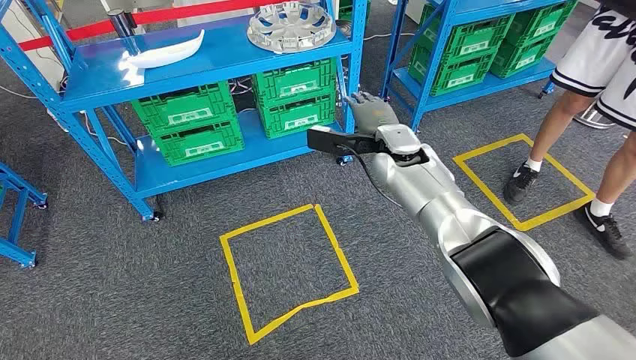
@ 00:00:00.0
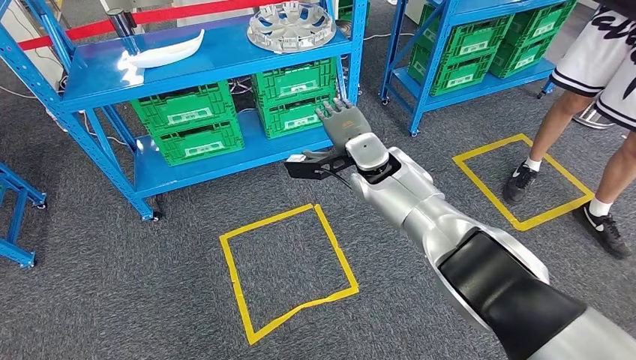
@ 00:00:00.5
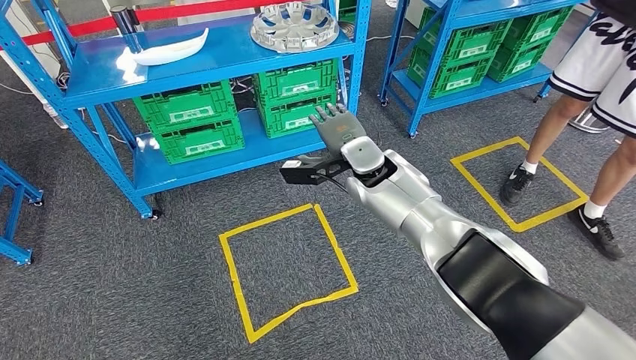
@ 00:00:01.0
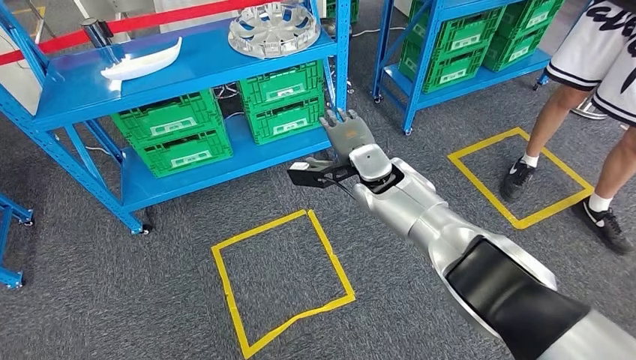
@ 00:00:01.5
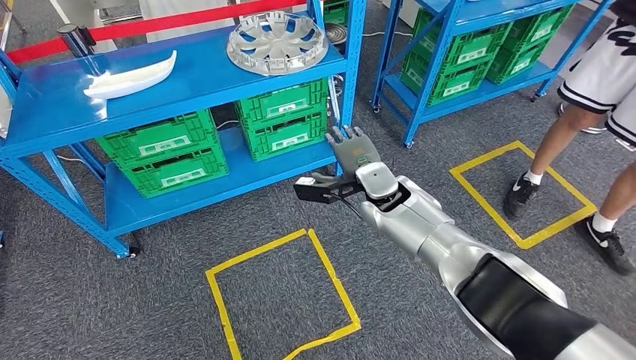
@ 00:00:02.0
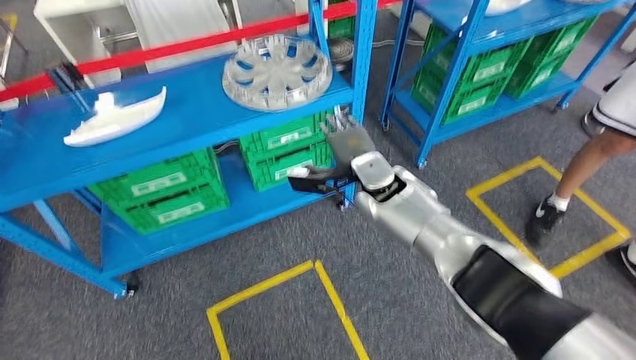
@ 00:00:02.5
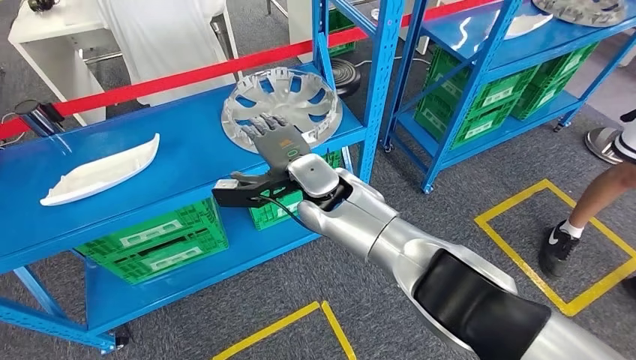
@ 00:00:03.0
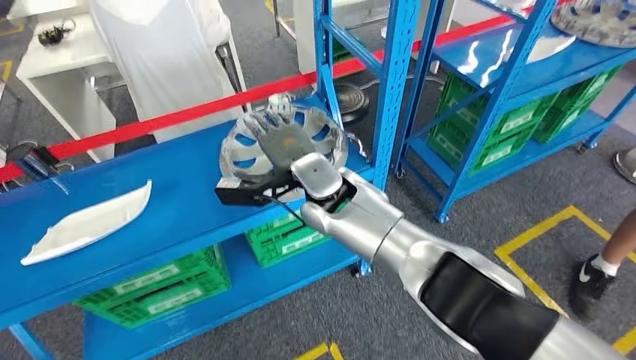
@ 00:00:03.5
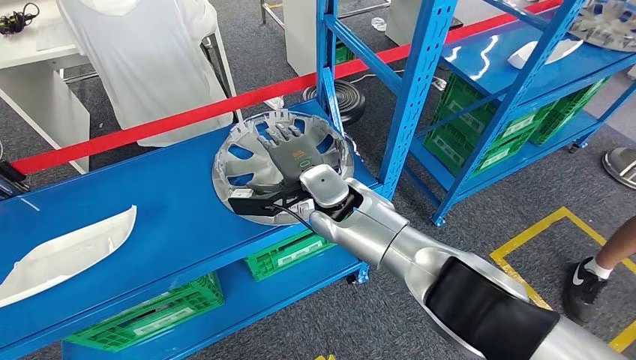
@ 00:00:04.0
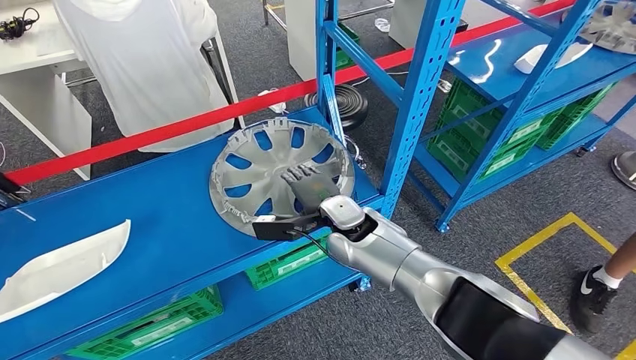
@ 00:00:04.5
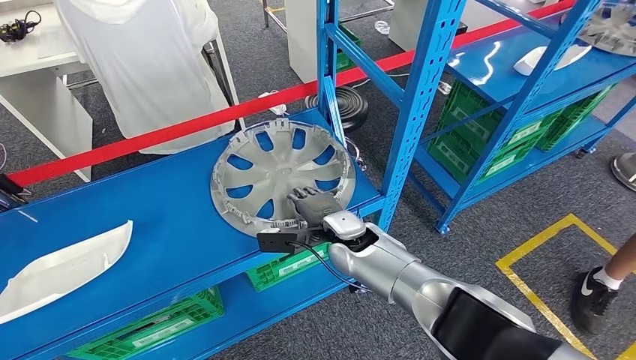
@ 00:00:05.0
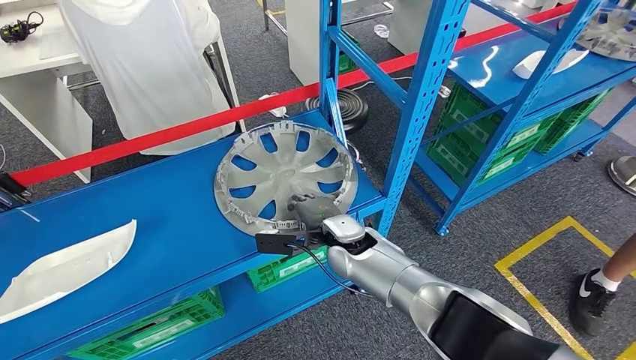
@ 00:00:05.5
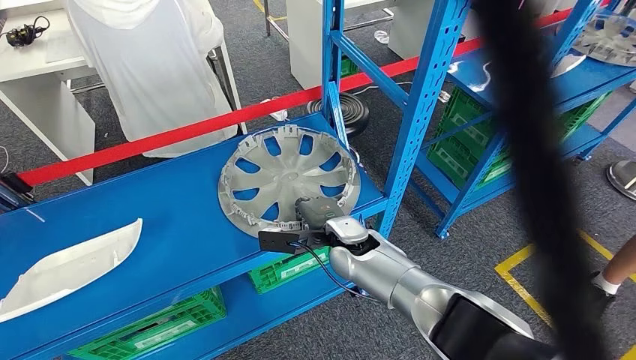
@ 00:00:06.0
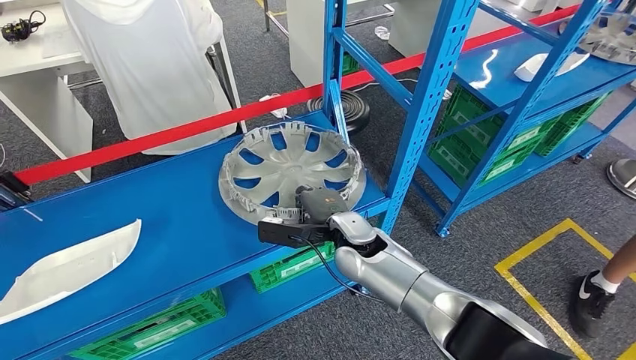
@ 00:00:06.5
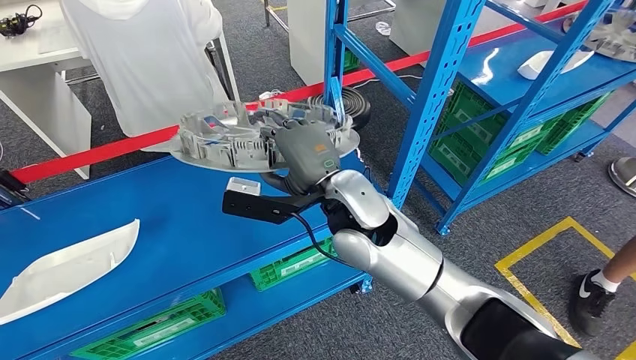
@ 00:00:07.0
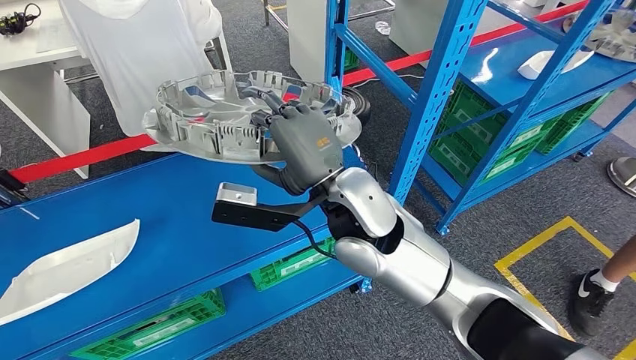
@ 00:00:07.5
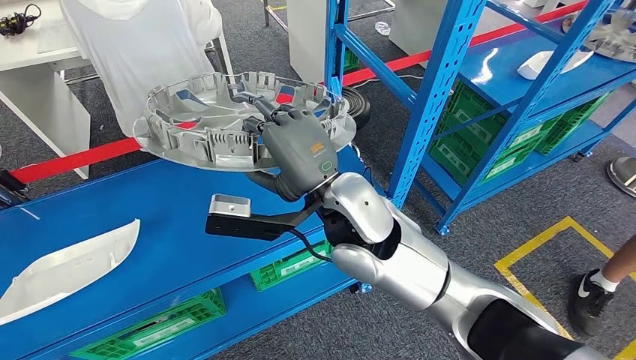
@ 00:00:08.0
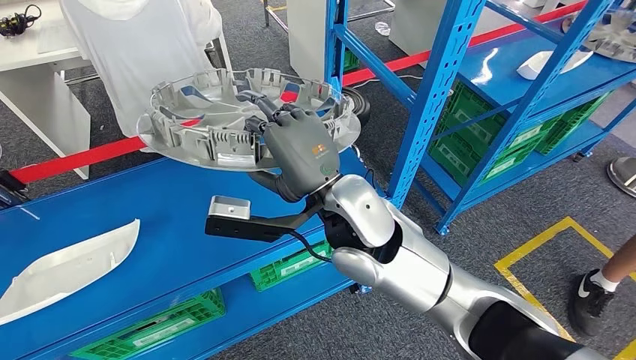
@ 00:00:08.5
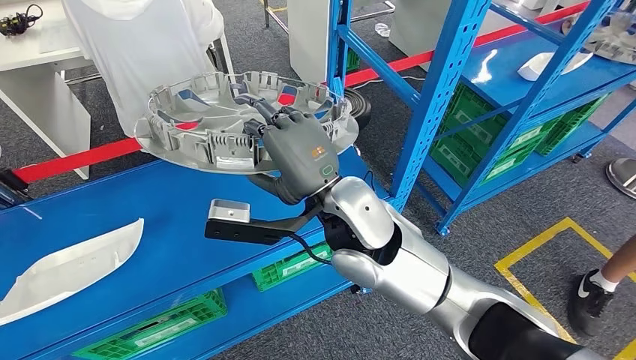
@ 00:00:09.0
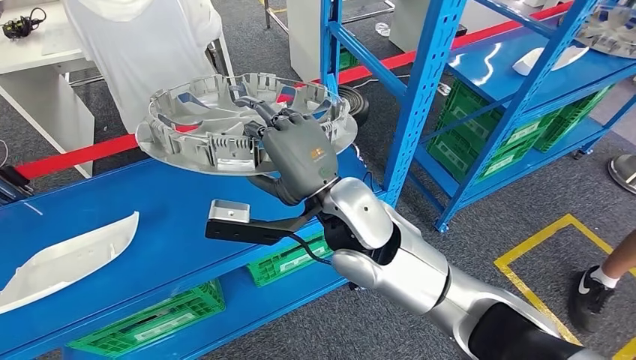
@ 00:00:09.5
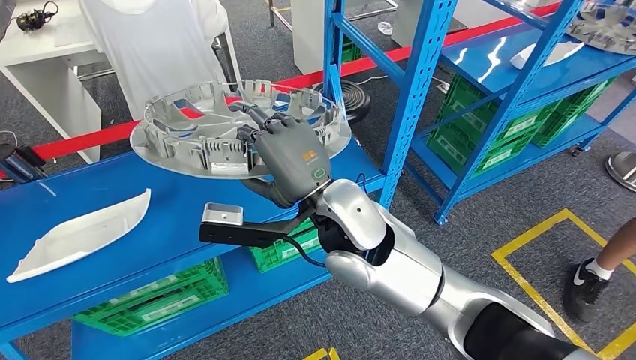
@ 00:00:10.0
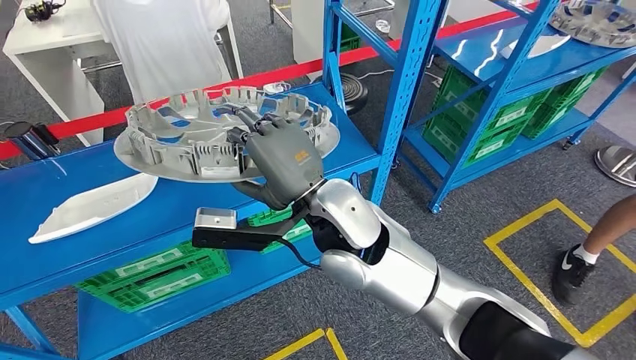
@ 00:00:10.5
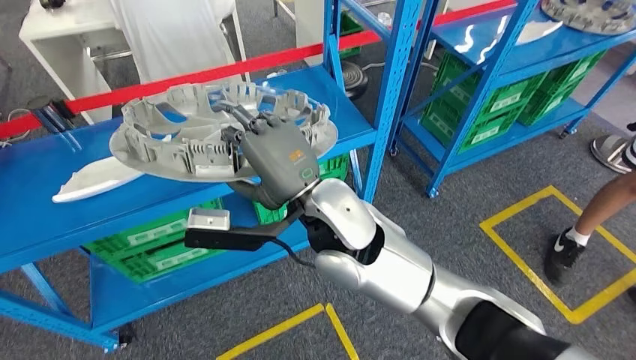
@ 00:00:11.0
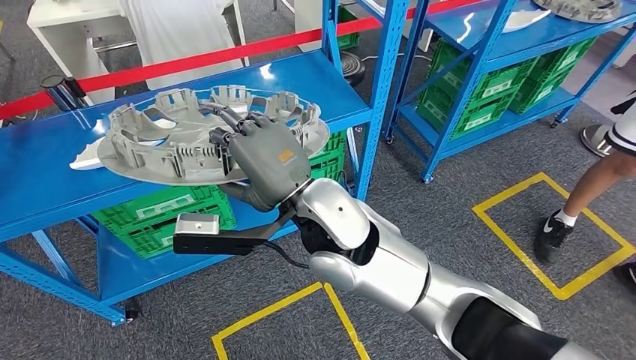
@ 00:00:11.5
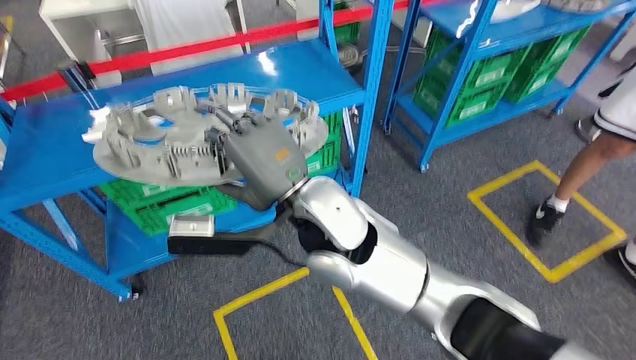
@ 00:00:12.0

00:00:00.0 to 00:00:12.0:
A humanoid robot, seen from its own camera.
Step, 00:00:00.0 to 00:00:09.0: Pick up the small component from the shelf.

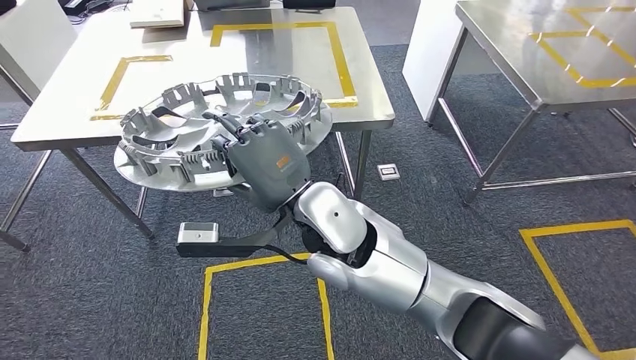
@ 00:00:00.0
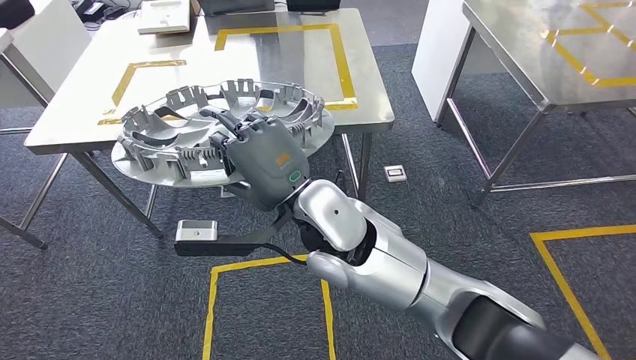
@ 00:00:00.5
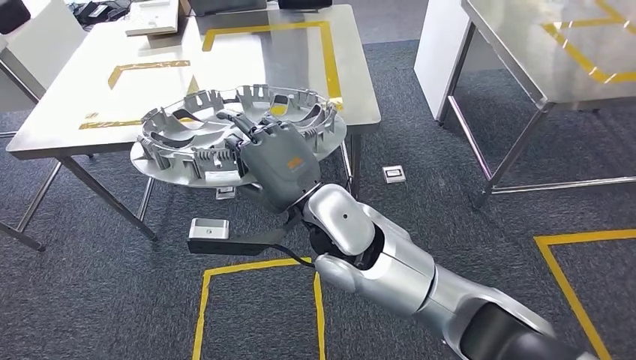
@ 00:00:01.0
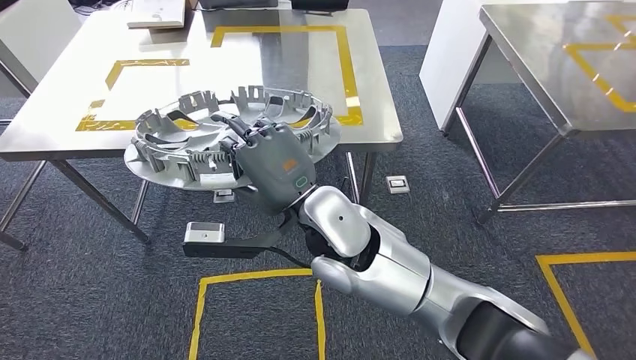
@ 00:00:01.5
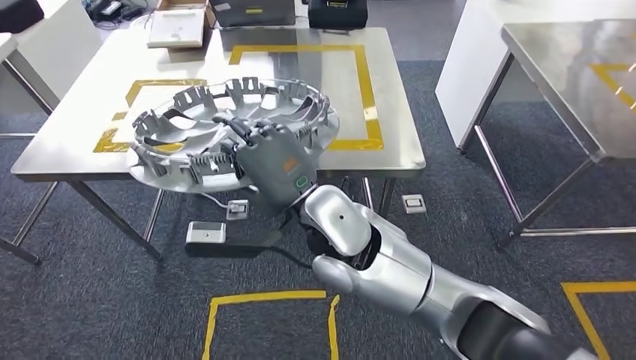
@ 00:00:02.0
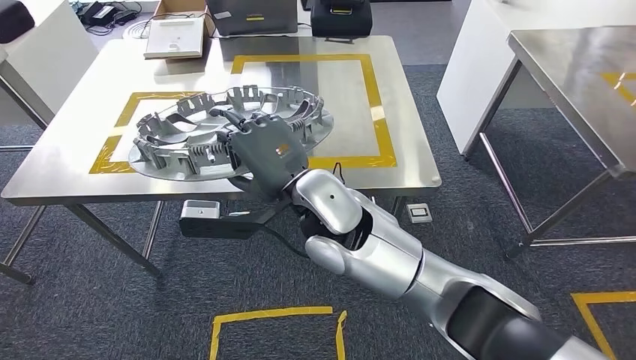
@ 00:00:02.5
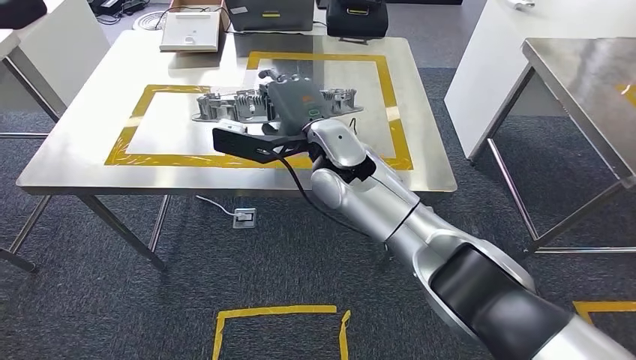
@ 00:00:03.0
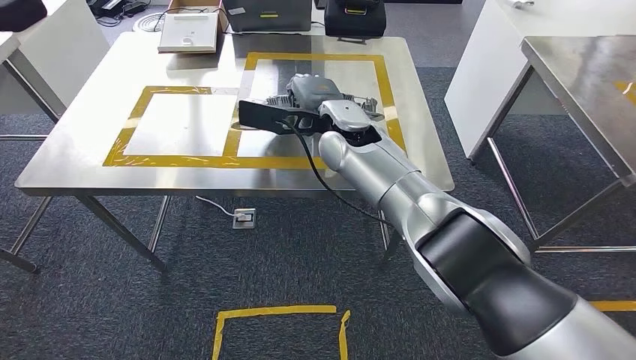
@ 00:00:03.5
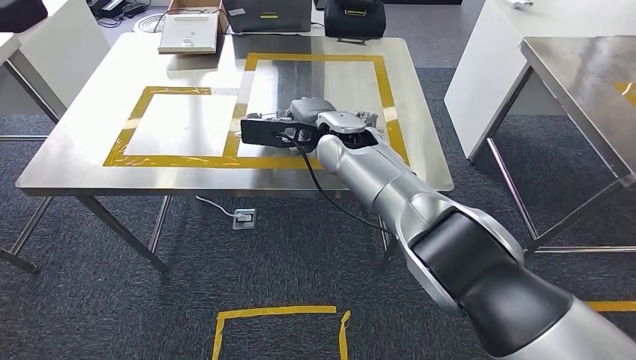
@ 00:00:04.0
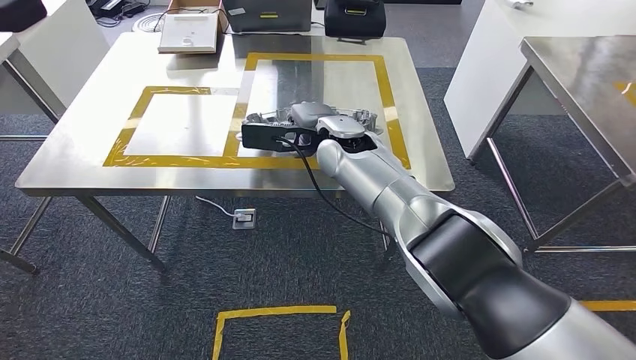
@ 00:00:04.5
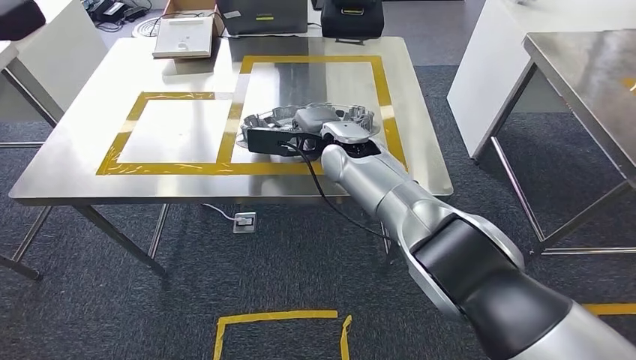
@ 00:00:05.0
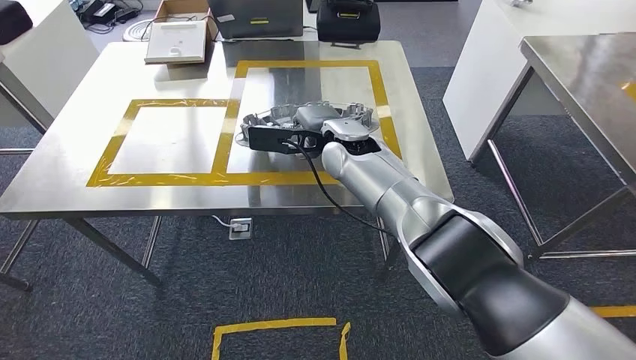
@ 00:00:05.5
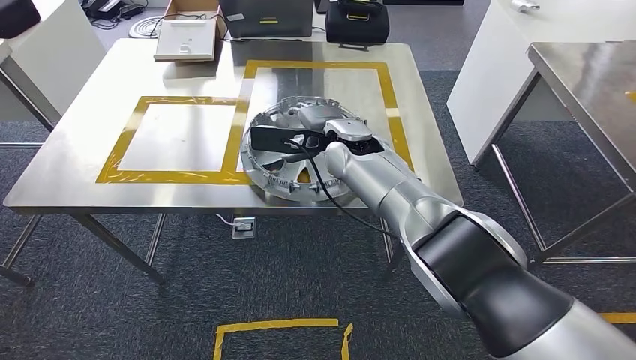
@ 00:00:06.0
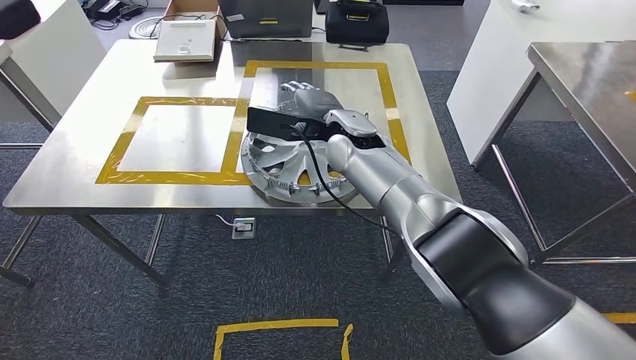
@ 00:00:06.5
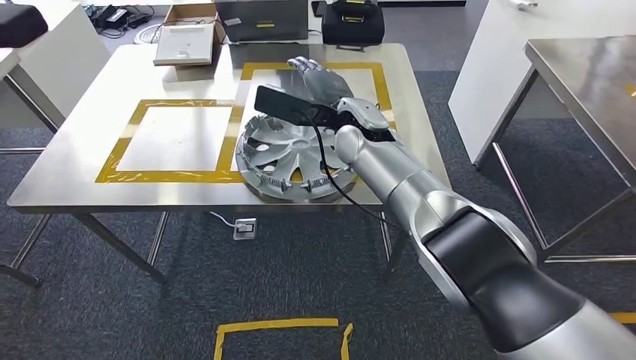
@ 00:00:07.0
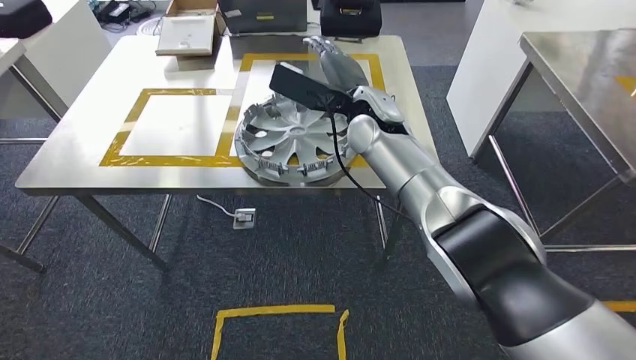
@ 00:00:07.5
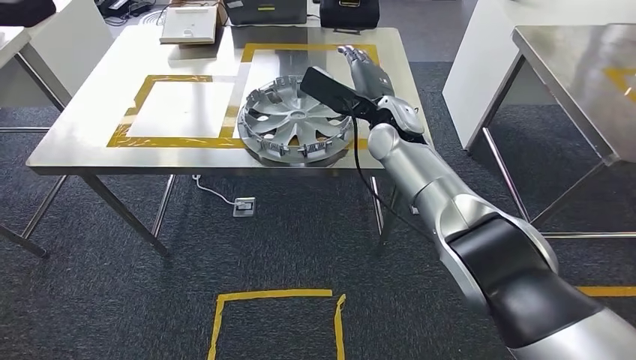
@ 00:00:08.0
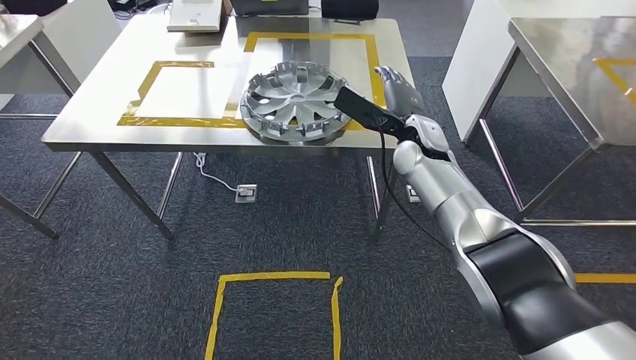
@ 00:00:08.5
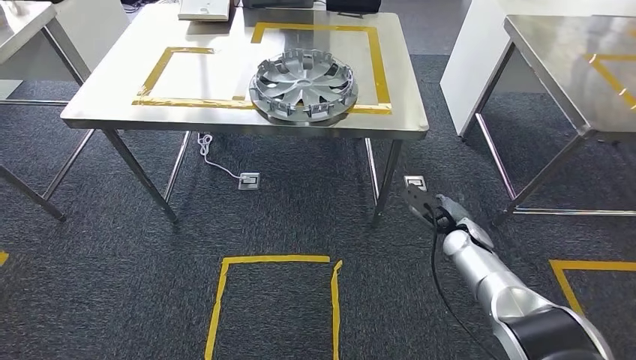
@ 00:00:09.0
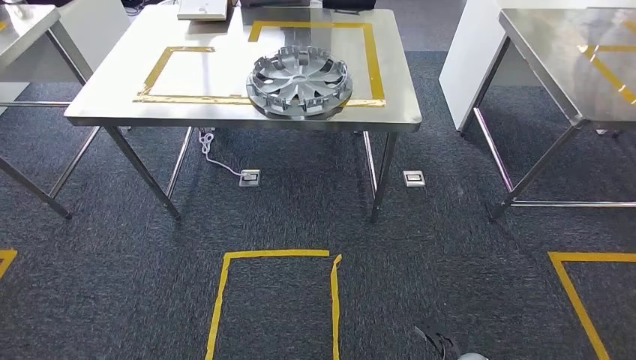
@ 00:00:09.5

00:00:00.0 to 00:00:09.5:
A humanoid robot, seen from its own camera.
Step, 00:00:00.0 to 00:00:03.0: Move the small component to the workbench.
Step, 00:00:04.0 to 00:00:05.5: Insert the small component into the corresponding slot on the workbench.
Step, 00:00:06.5 to 00:00:09.5: Return to the initial position at the workbench.
